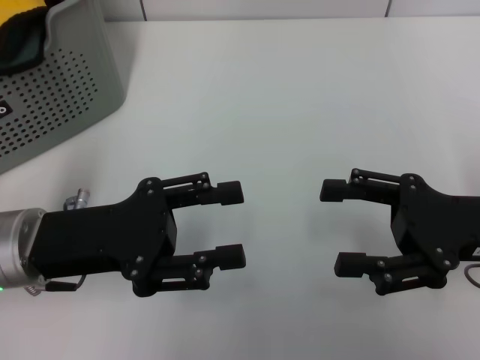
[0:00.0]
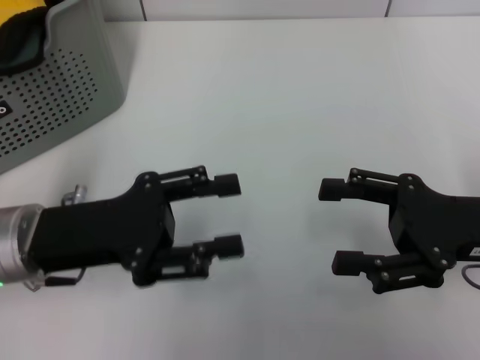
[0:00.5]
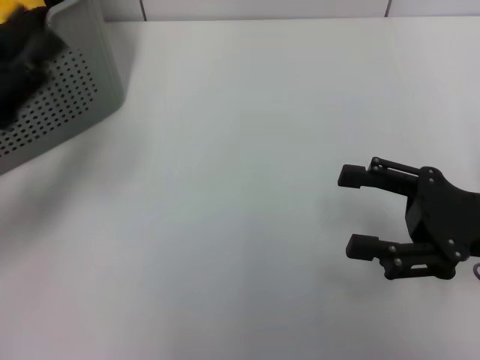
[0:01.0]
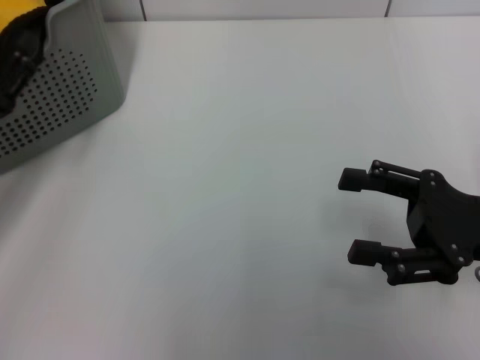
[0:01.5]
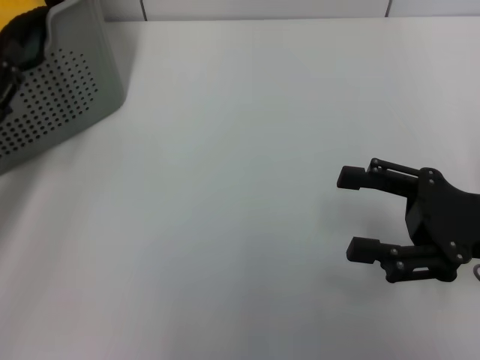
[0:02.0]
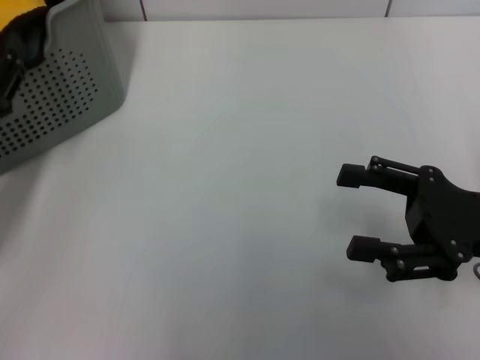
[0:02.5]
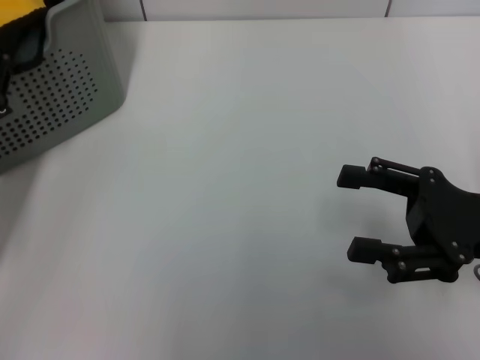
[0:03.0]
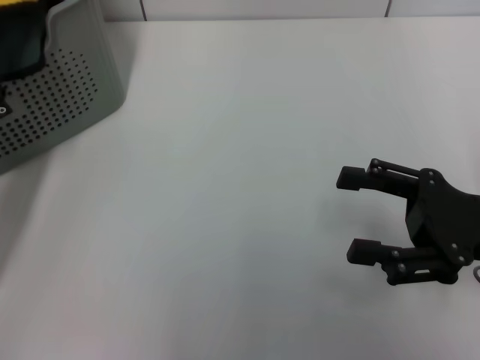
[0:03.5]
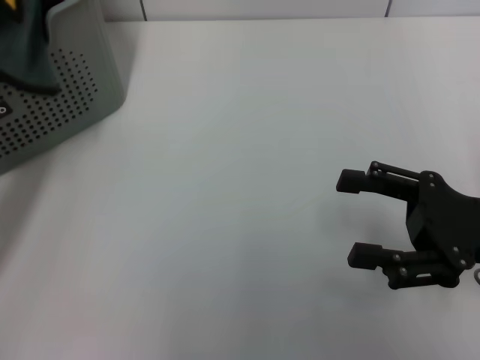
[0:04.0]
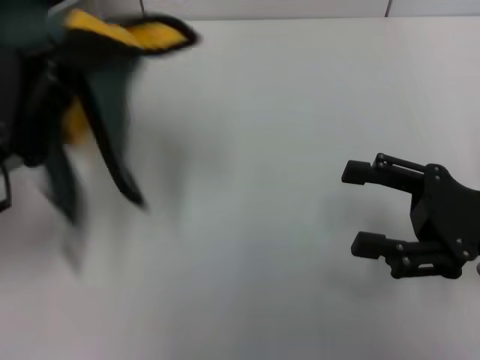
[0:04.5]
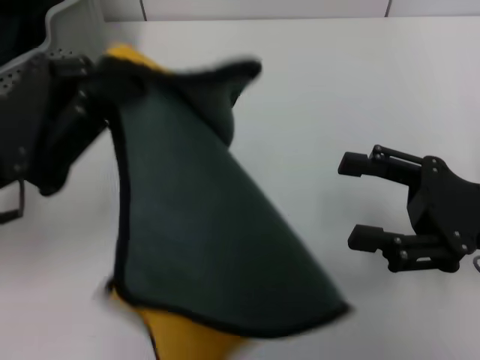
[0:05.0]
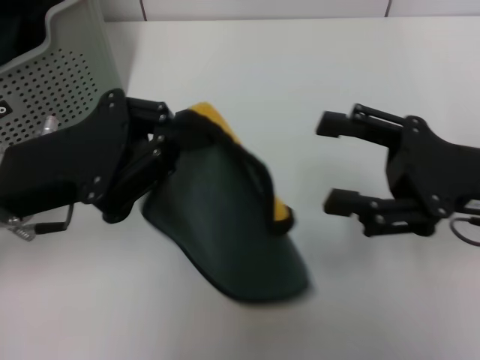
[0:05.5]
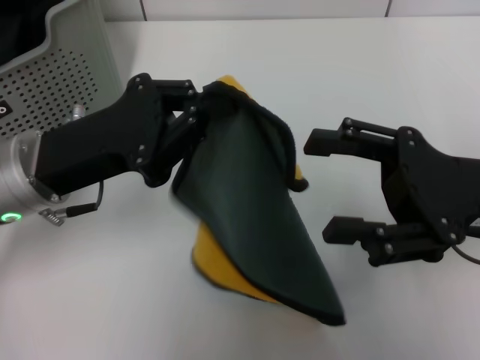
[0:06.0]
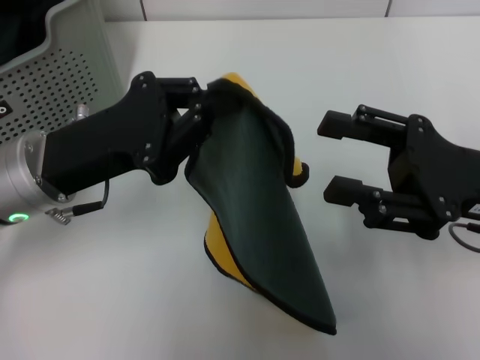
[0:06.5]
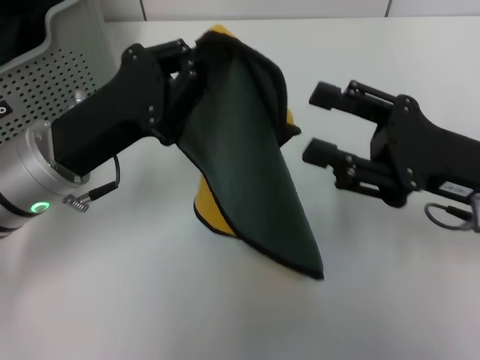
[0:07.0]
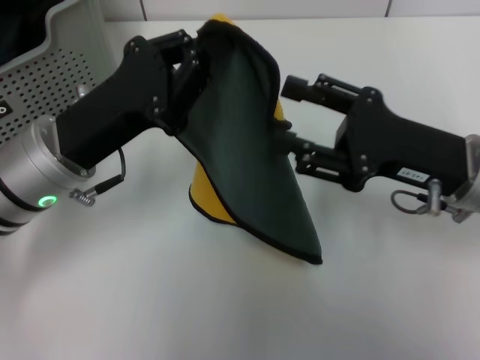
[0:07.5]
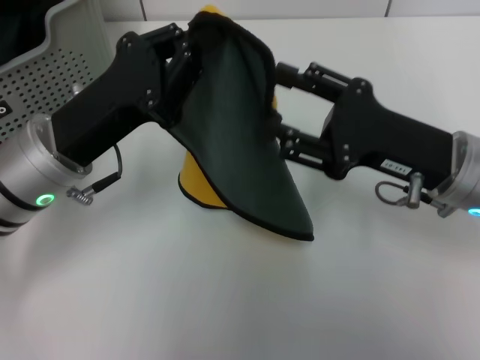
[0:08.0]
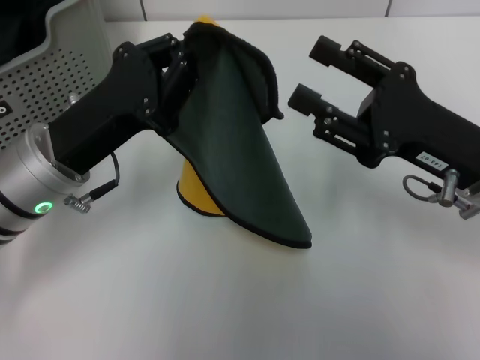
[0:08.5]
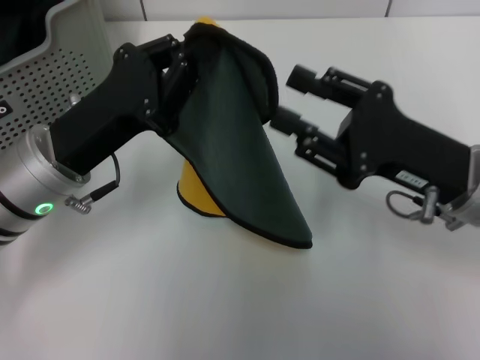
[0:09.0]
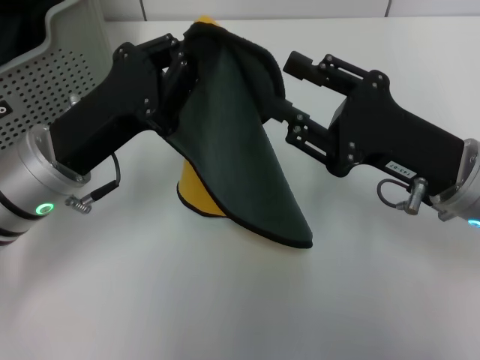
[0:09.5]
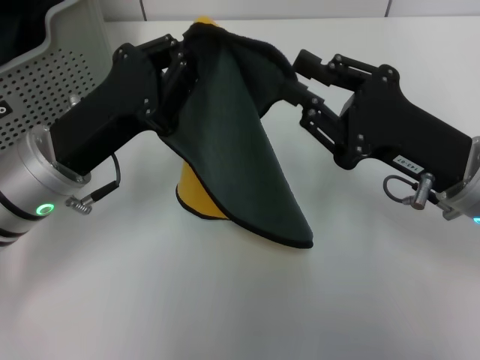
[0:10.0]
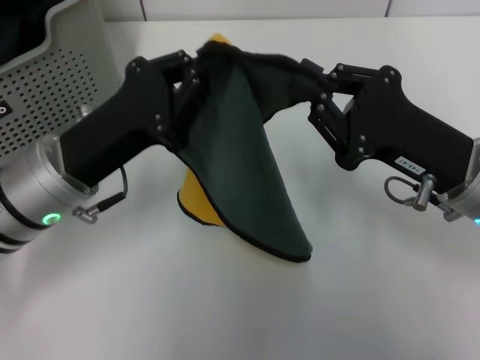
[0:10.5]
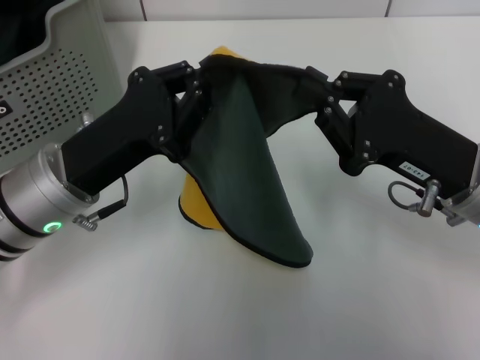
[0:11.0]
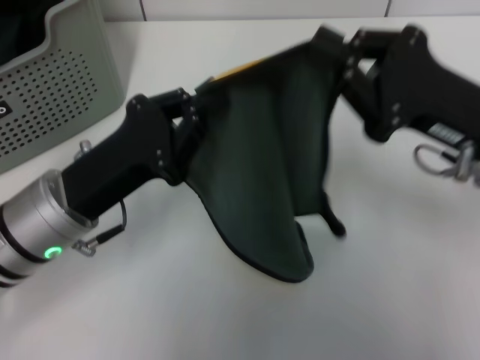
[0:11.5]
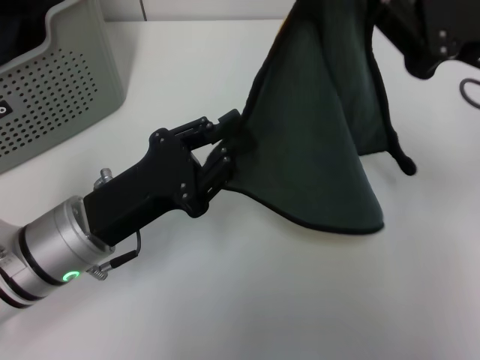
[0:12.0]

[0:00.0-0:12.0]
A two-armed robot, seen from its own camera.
Task of the whole recording: pick up the towel from the storage box and lay it flat on the table.
Step, 0:00.0 to 0:03.0: Pick up a towel with the left gripper.
Step, 0:03.5 to 0:10.0: Spread the towel flat with the left gripper.
0:00.0 to 0:02.0: The left gripper travels to the left by approximately 10 cm.
0:02.0 to 0:04.0: The left gripper closes up.
0:04.0 to 0:06.0: The left gripper heads to the right, covering about 10 cm.
0:08.0 to 0:10.0: The grippers move only a little.
0:10.0 to 0:12.0: The right gripper goes about 10 cm upward, and closes, while the left gripper ends up approximately 5 cm from where it was.

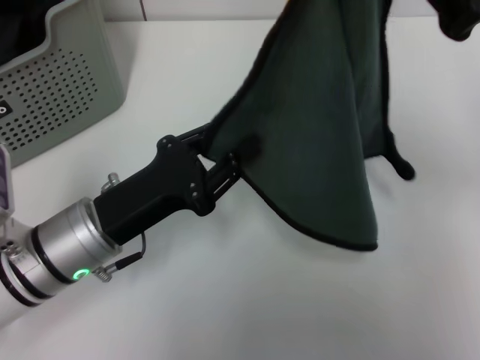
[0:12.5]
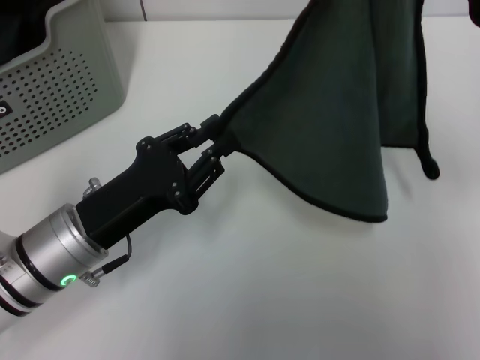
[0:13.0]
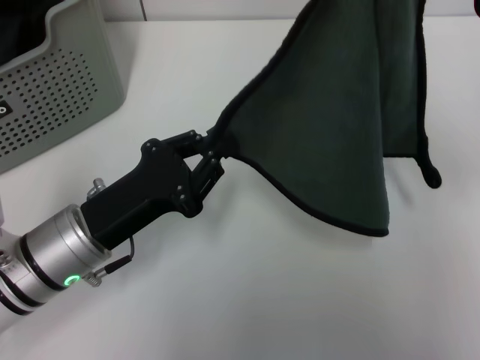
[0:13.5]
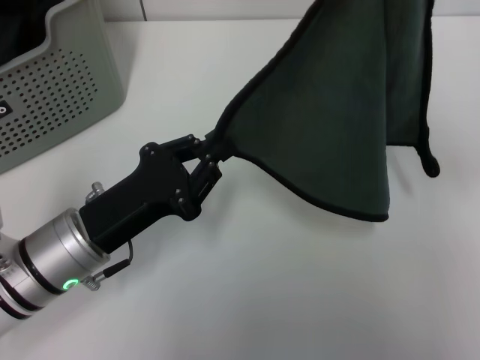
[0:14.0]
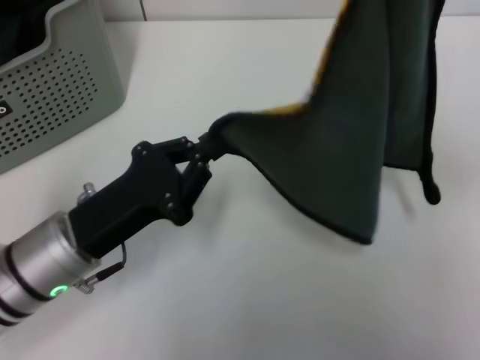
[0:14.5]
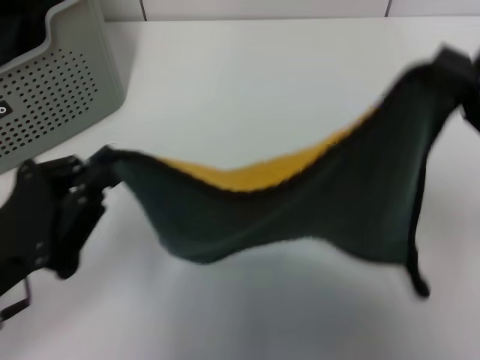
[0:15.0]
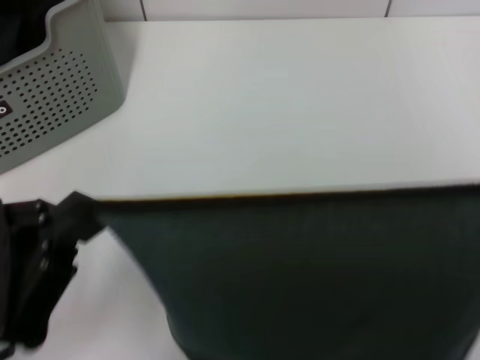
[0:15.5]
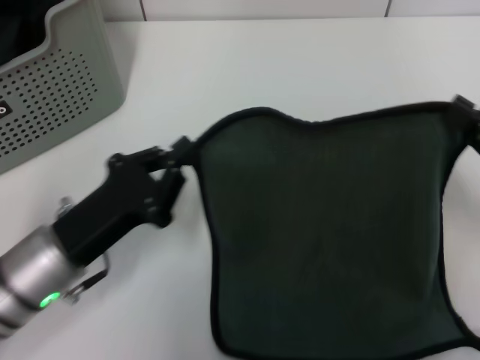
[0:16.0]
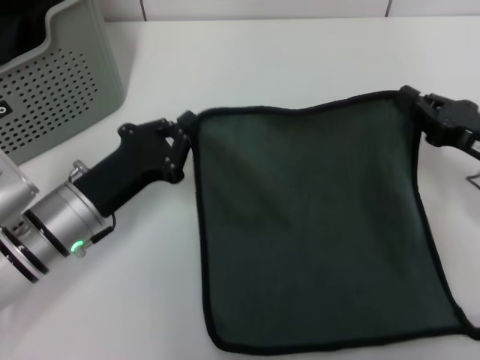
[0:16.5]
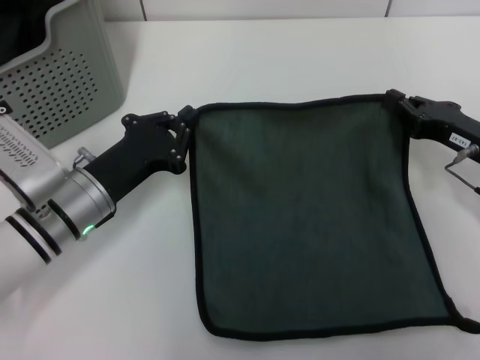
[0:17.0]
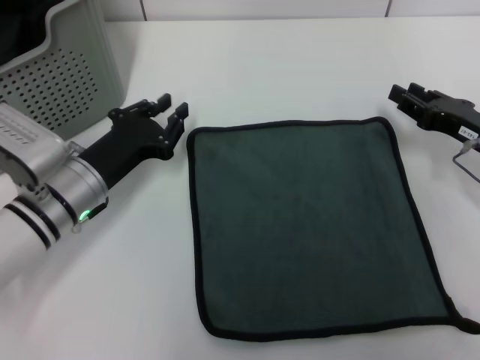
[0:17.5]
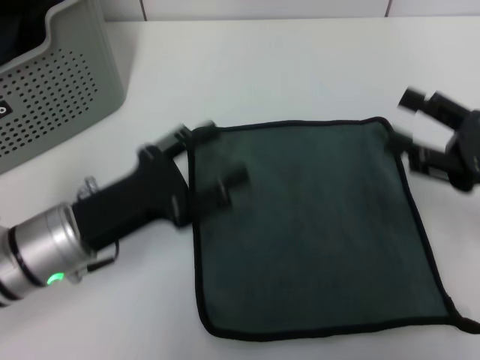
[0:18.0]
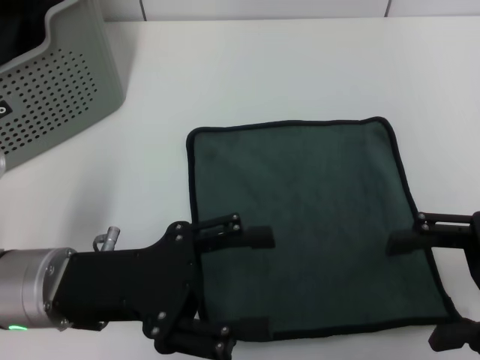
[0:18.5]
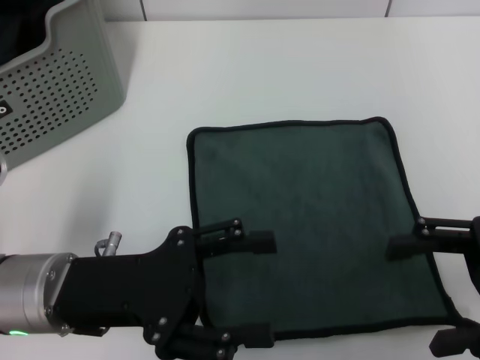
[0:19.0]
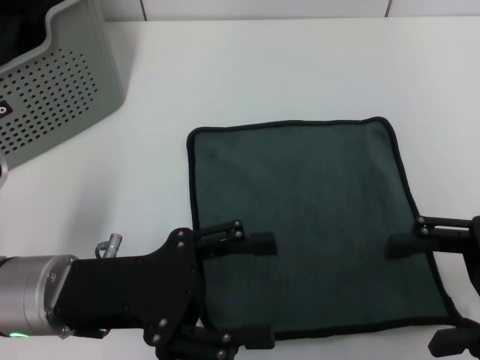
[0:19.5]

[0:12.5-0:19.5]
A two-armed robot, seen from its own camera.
Task of the whole recording: pick up the towel from the storage box and lay it flat on the table.
Step, 0:12.5 to 0:17.0: Spread the towel flat with the right gripper.
0:14.5 to 0:16.0: The left gripper moves some 10 cm backward and comes back. The right gripper heads downward, covering roughly 15 cm.
0:16.0 to 0:17.5: The grippers both shift forward by about 10 cm.
0:17.5 to 0:19.5: The grippers both shift backward and upward by roughly 10 cm. The left gripper opens its fingers. The right gripper opens its fingers.

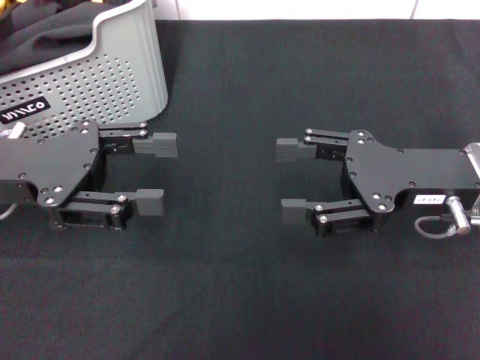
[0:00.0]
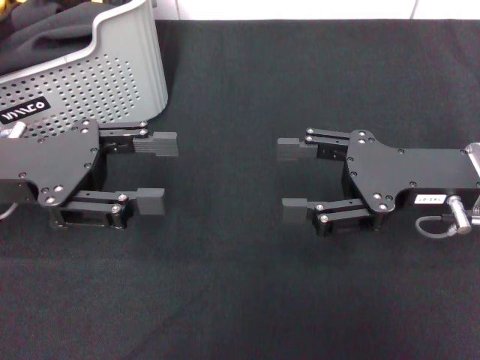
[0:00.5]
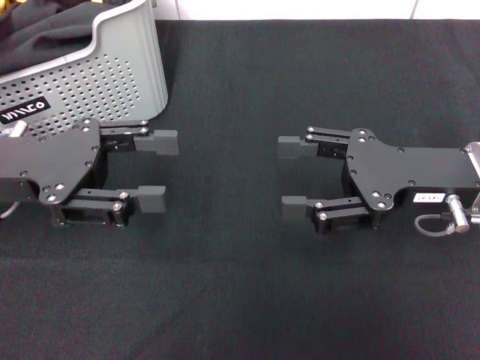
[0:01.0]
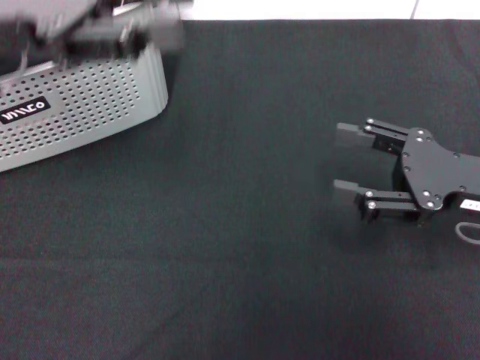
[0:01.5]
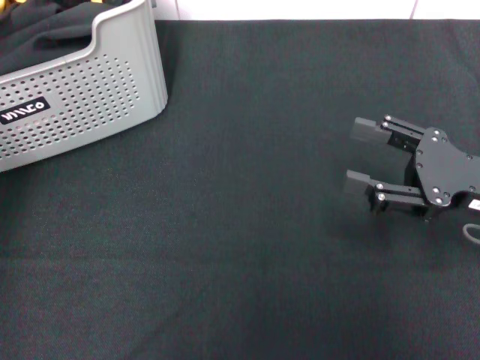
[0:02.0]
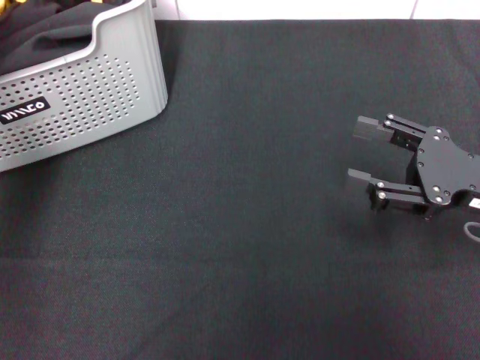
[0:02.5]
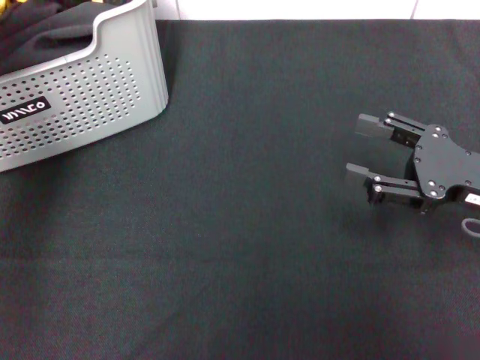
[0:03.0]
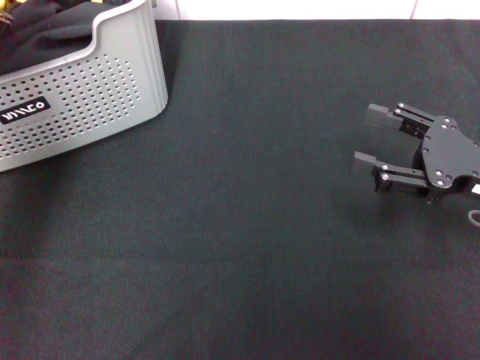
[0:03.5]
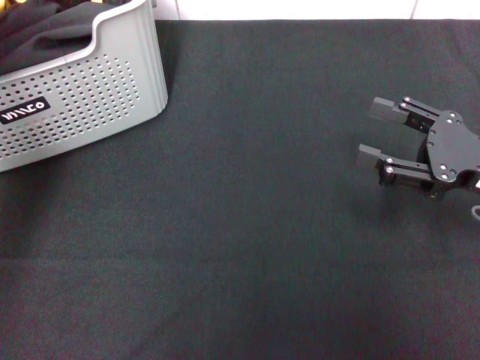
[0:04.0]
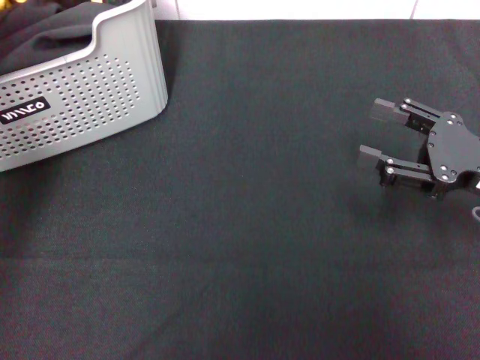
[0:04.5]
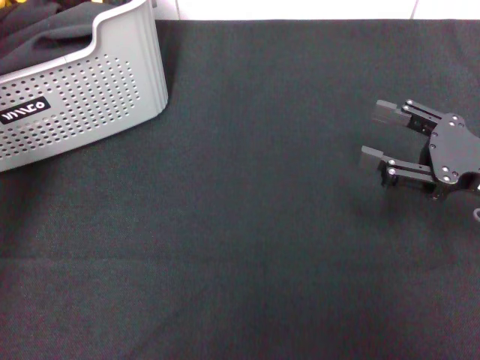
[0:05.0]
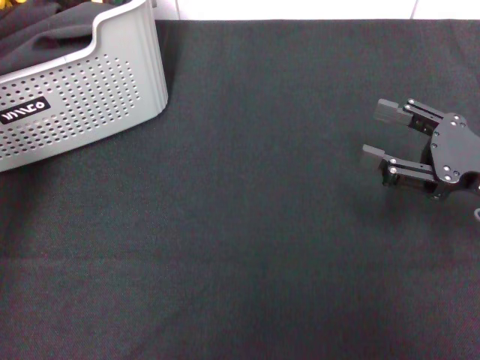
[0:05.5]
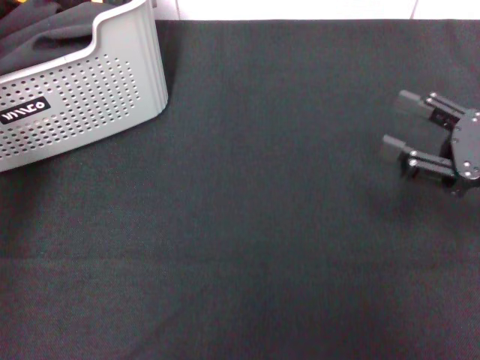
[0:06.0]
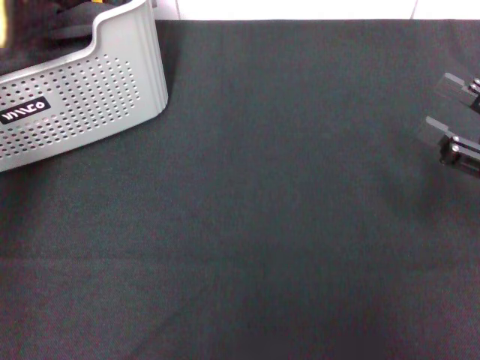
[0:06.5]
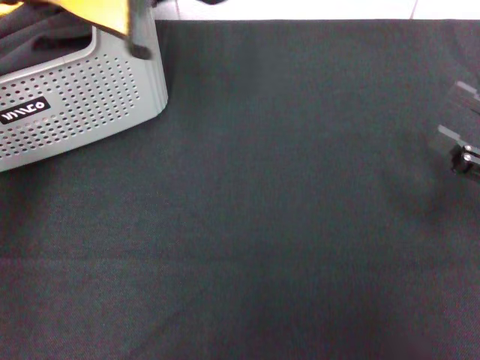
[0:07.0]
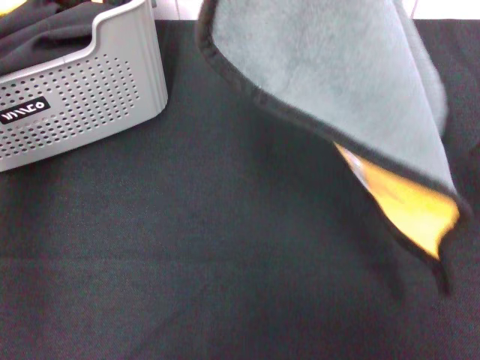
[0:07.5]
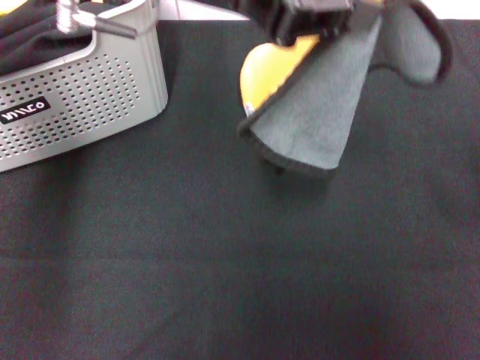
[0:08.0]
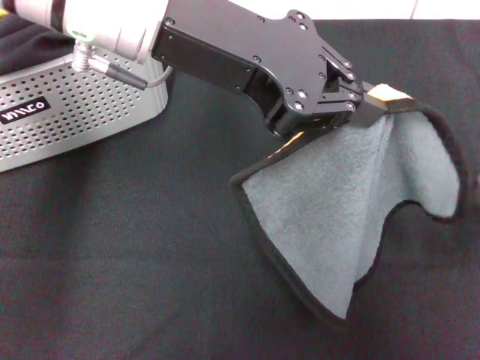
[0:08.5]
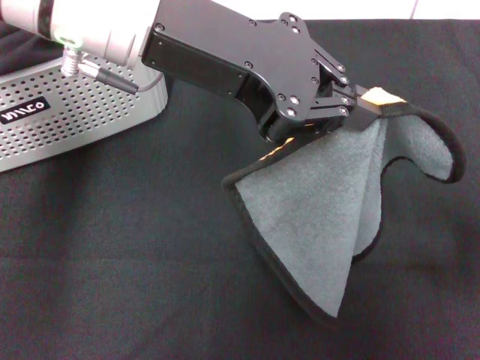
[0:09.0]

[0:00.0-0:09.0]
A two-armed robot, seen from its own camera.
Task of the whole recording: pick up the towel from the storage box and lay it flat on the black tablecloth.
Step, 0:00.0 to 0:05.0: Pick up a towel with the left gripper.
0:00.0 to 0:02.0: The left gripper heads upward, covering some 20 cm. The right gripper is displaced to the right by approximately 5 cm.
0:02.0 to 0:04.5: The left gripper shifts by some 5 cm.
0:04.5 to 0:07.0: The right gripper ends up roughly 5 cm from where it was, while the left gripper is displaced to the right and upward by roughly 10 cm, and closes up.
0:07.0 to 0:09.0: The left gripper moves to the right and downward, some 10 cm.
